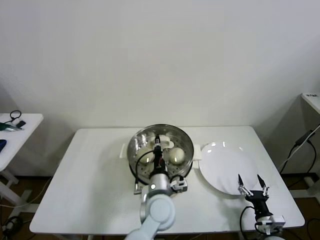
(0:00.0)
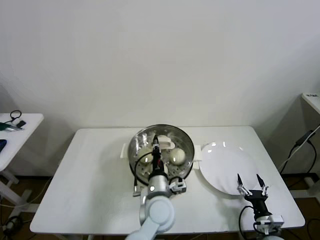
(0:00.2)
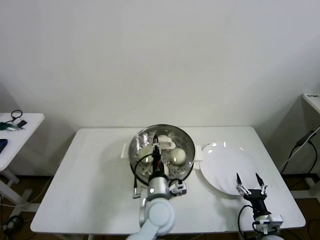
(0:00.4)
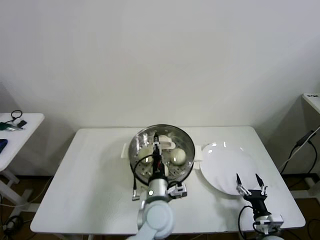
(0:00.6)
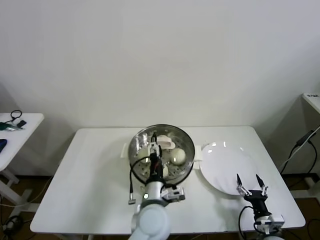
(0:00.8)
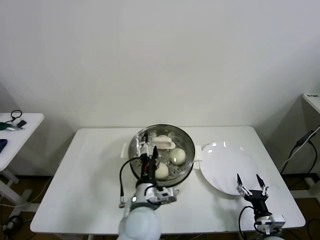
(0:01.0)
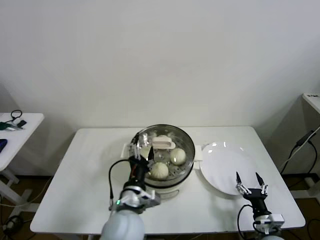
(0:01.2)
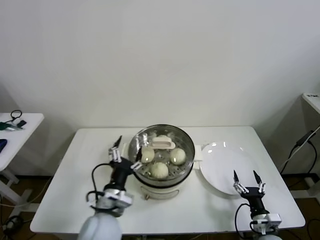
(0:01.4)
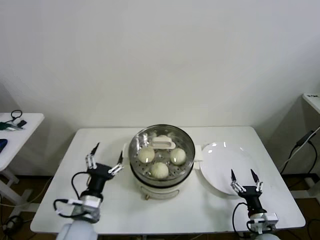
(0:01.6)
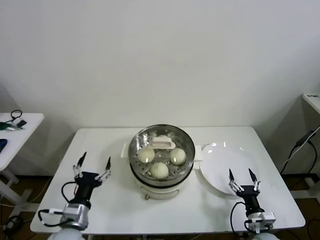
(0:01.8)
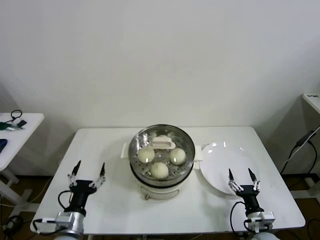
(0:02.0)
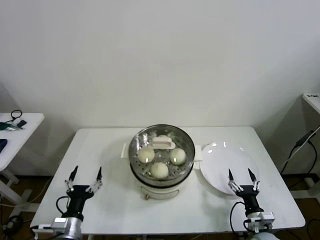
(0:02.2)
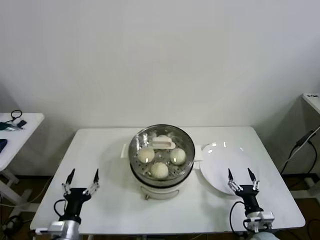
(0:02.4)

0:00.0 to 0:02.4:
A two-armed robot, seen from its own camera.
Task of the whole recording: take steamed baozi put them in steamer then cover it.
0:00.0 to 0:01.2: The left gripper is displaced to the left and backward by some 10 cm, and opens up.
0:01.2 to 0:02.4: The left gripper travels to the left and downward by some 25 cm.

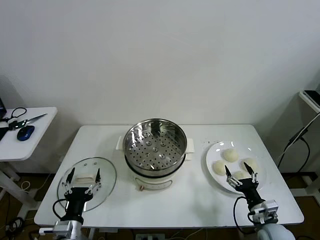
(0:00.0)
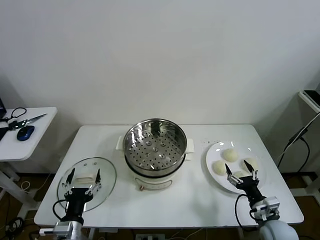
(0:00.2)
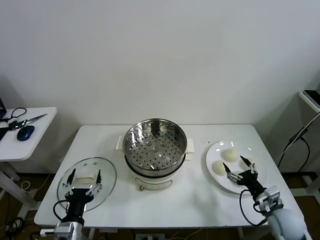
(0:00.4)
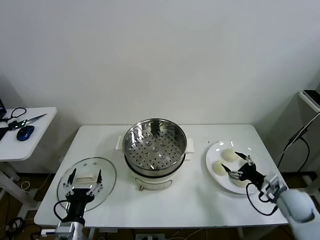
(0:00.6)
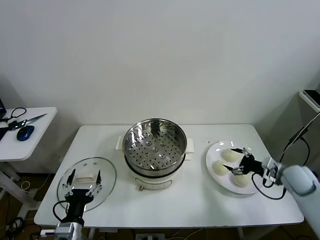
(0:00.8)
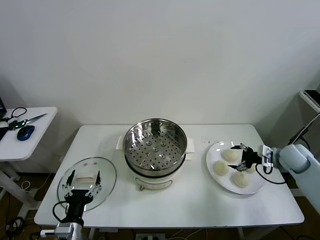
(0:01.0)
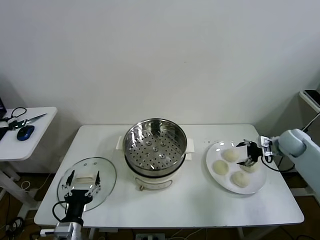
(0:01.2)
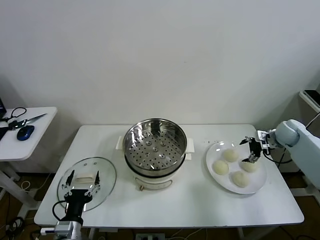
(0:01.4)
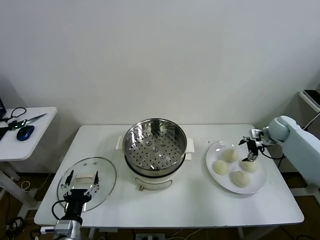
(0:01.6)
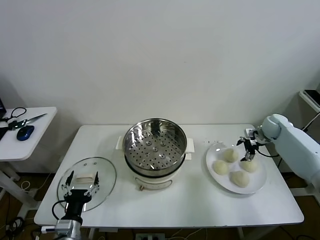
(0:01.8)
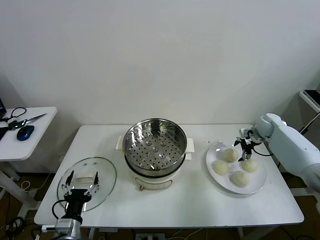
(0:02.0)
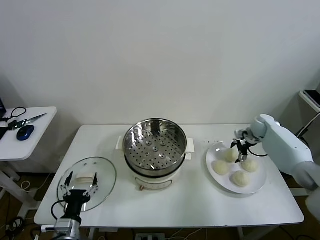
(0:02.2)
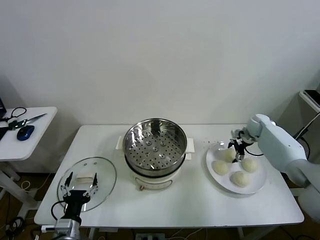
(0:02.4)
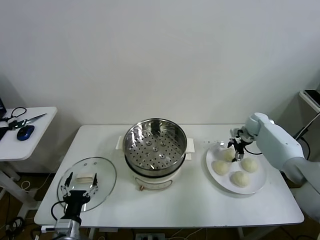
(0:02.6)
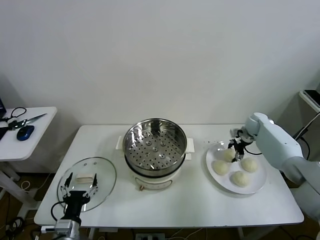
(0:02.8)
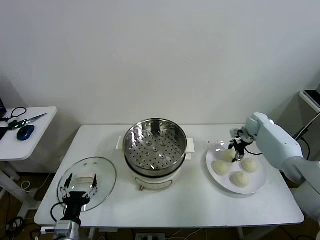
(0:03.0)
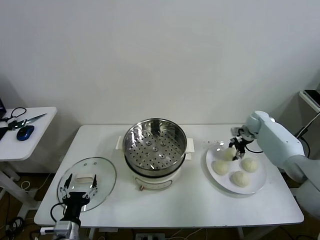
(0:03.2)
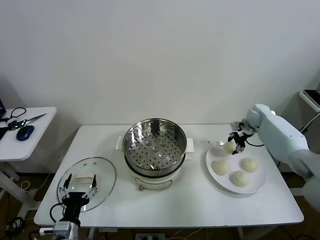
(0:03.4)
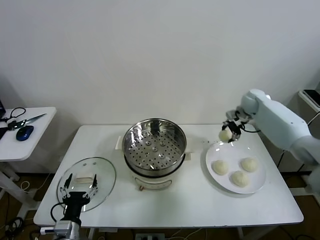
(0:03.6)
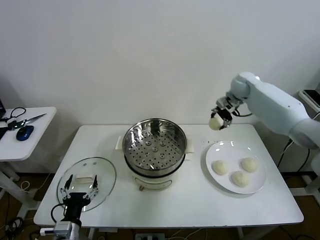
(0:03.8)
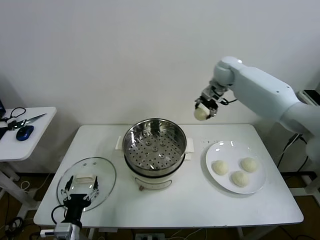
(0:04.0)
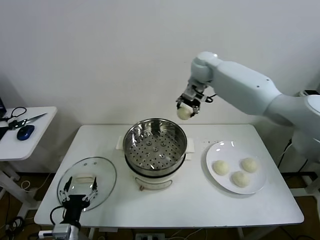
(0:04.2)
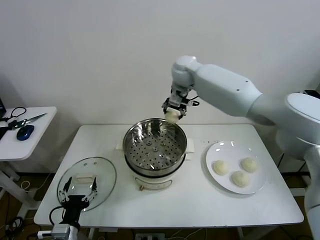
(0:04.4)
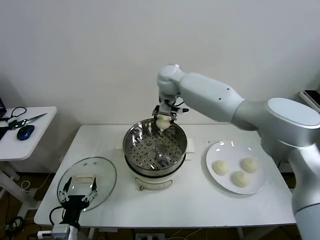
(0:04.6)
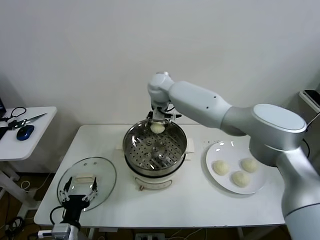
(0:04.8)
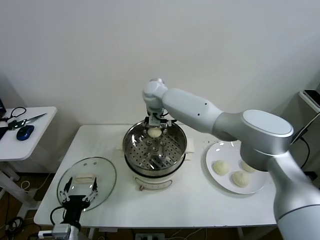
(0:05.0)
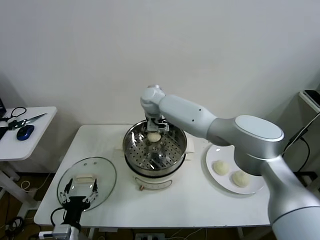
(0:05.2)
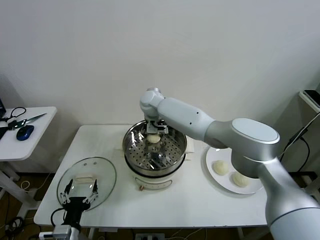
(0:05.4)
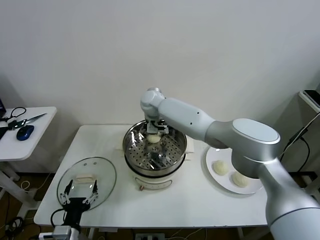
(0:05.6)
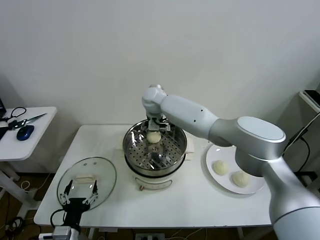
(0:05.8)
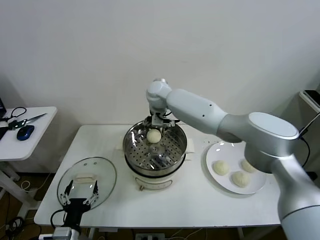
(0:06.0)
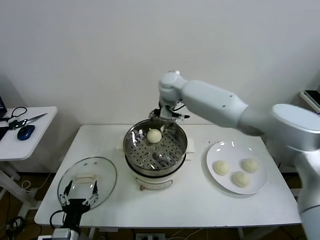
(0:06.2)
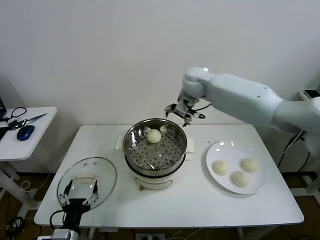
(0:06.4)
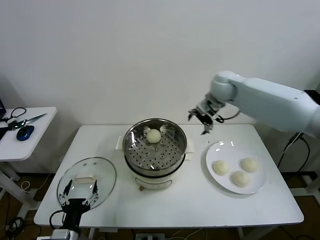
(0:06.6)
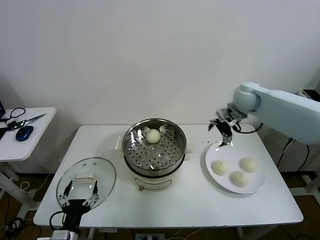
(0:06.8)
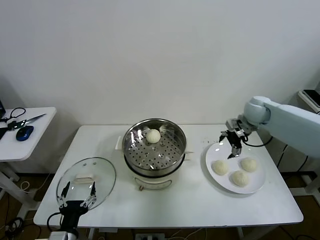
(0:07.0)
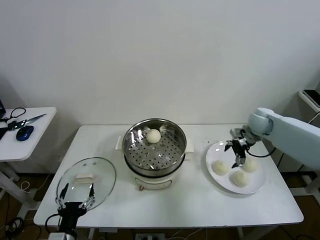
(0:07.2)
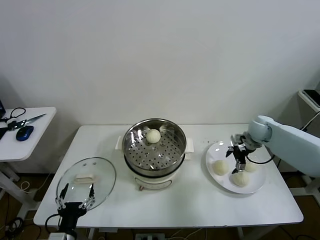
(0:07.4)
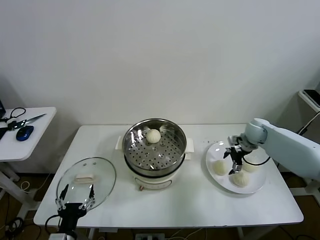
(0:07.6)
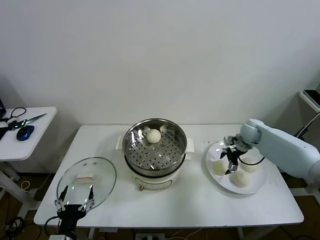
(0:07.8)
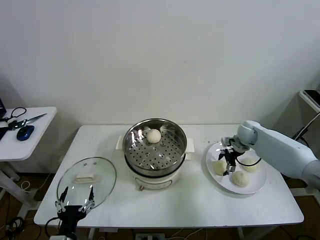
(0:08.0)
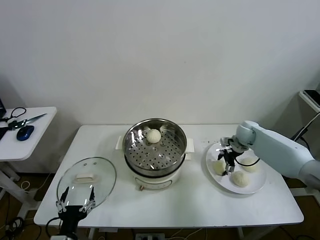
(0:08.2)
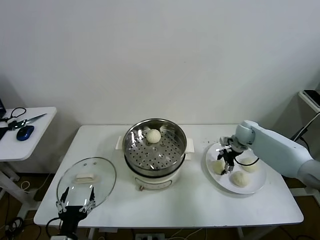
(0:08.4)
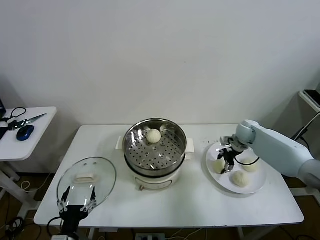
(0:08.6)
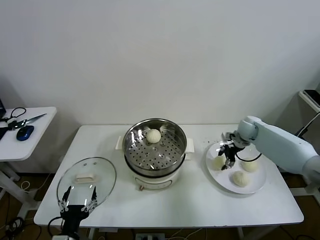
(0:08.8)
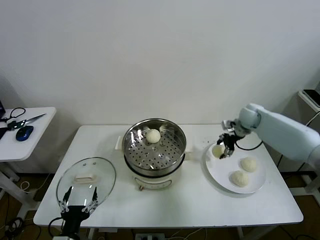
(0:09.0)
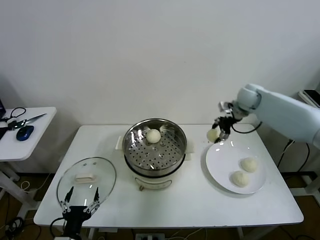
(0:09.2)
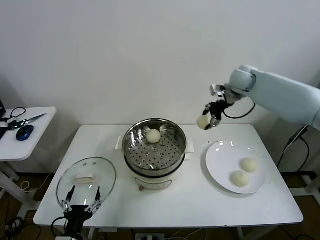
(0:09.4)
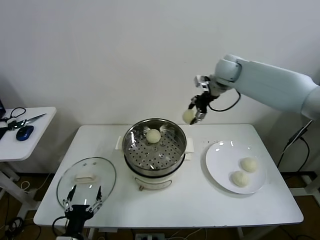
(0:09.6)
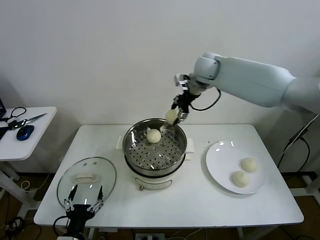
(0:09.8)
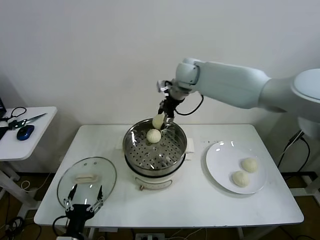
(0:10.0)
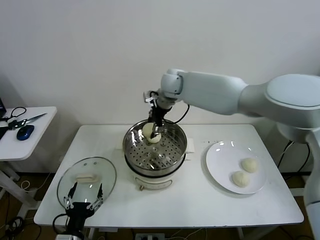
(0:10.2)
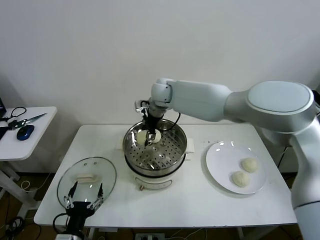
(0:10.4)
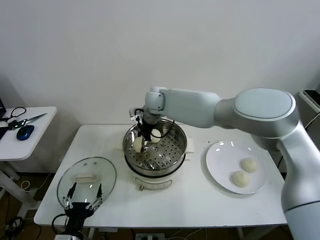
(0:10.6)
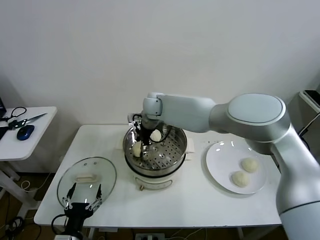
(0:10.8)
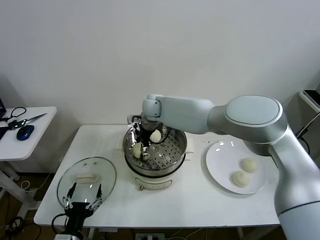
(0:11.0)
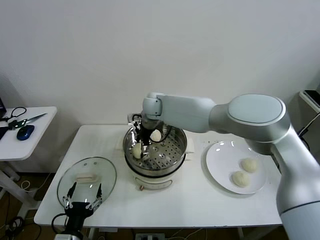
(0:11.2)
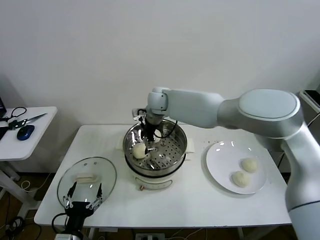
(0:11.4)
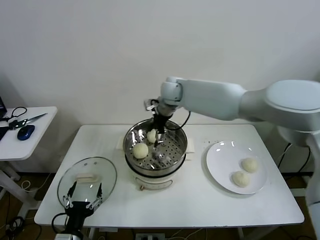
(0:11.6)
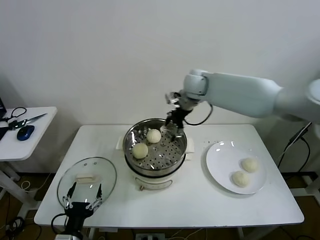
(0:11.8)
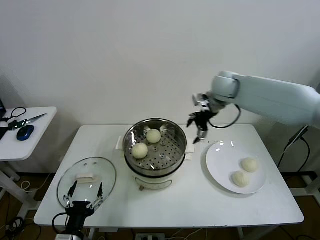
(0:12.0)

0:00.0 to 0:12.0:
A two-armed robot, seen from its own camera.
Task of the whole recording: take steamed baozi put them in steamer then cover it.
Step, 0:00.0 to 0:02.8: Grasp the baozi in the plate with right gripper.
Step, 0:03.0 to 0:05.8: Place the baozi on the steamer with right gripper.
Step, 0:06.0 to 0:08.4: Grasp the baozi in the plate with right gripper.
Step, 0:08.8 to 0:11.2: Place the baozi on the steamer with right gripper.
0:01.6 to 0:03.0: The right gripper changes place by approximately 10 cm, and closes up.
0:03.0 to 0:04.4: The right gripper moves to the left and upward, approximately 40 cm.
0:04.4 to 0:06.0: The right gripper opens.
0:06.0 to 0:07.6: The right gripper travels to the right and downward by some 40 cm.
0:07.6 to 0:09.0: The right gripper shifts about 10 cm upward, and closes.
0:09.0 to 0:10.4: The right gripper heads to the left, covering some 35 cm.
0:10.4 to 0:12.0: The right gripper goes some 25 cm to the right, and opens up.

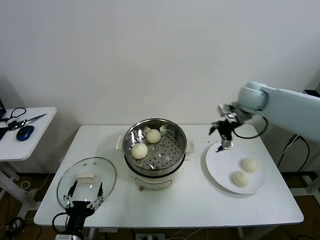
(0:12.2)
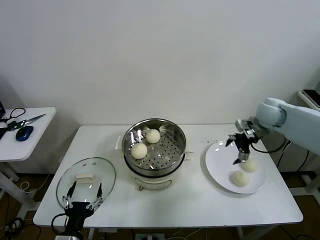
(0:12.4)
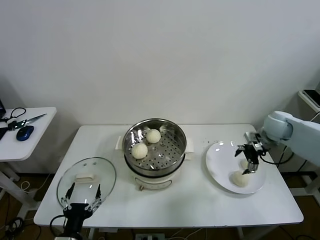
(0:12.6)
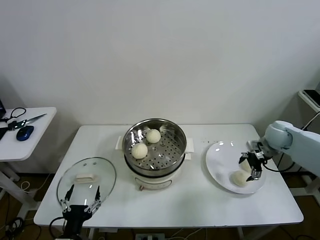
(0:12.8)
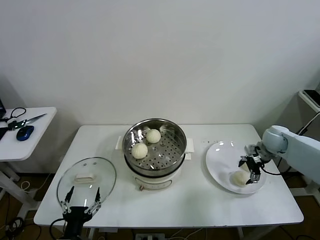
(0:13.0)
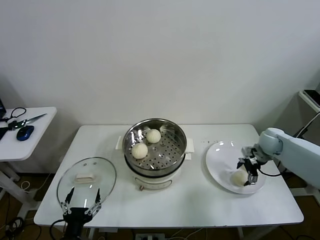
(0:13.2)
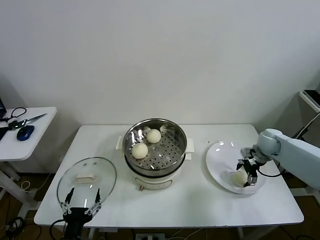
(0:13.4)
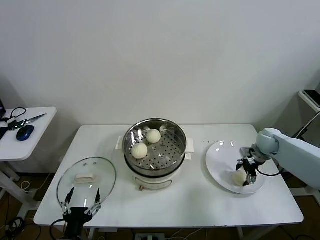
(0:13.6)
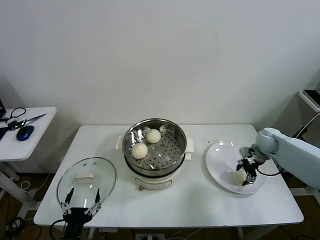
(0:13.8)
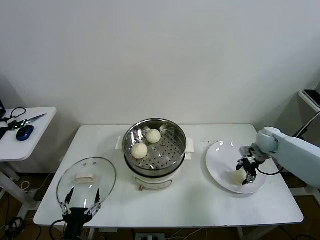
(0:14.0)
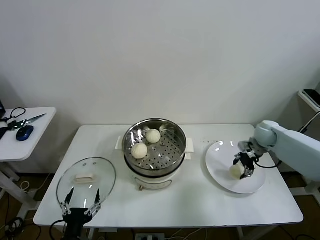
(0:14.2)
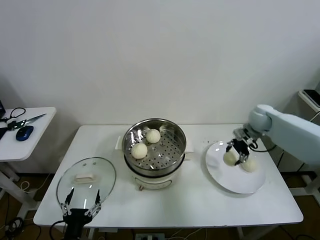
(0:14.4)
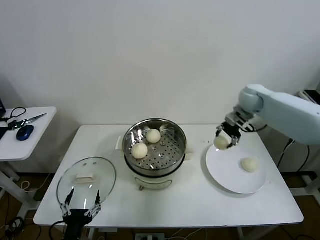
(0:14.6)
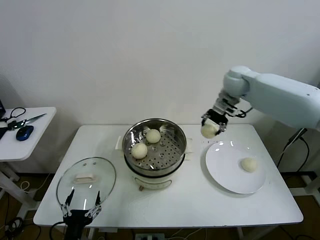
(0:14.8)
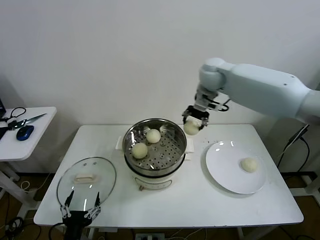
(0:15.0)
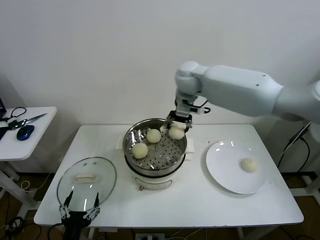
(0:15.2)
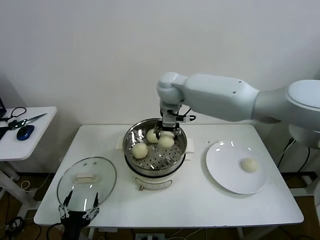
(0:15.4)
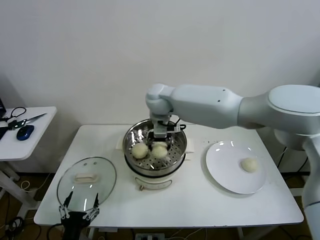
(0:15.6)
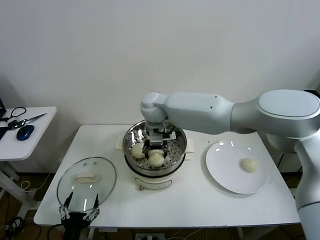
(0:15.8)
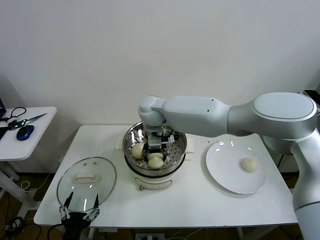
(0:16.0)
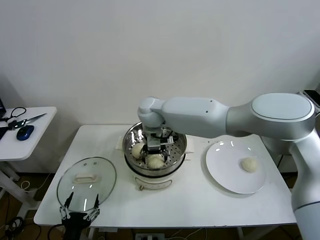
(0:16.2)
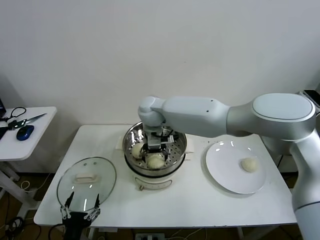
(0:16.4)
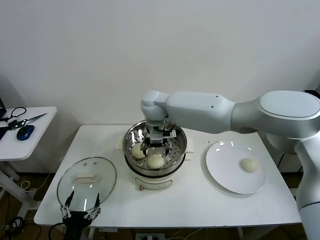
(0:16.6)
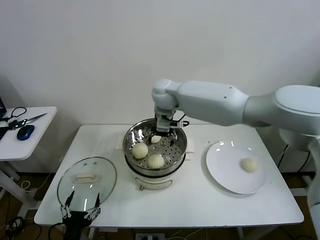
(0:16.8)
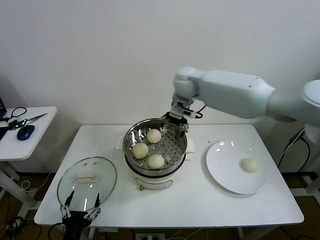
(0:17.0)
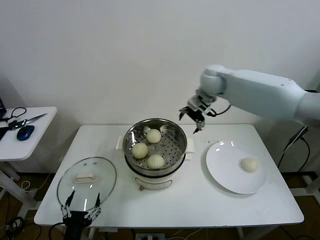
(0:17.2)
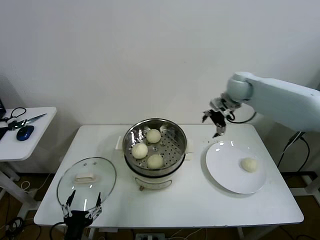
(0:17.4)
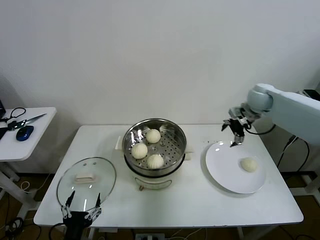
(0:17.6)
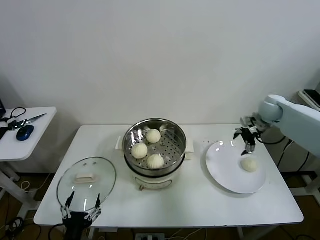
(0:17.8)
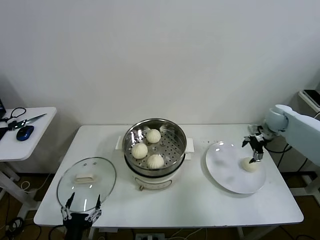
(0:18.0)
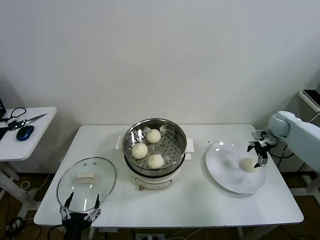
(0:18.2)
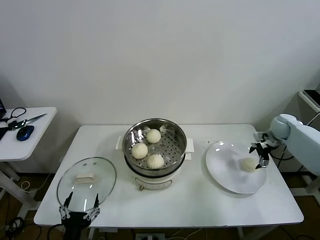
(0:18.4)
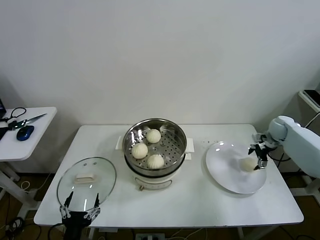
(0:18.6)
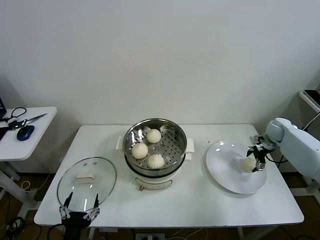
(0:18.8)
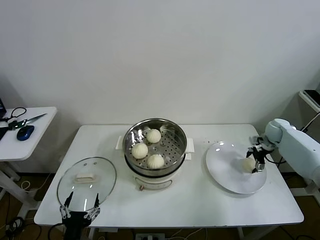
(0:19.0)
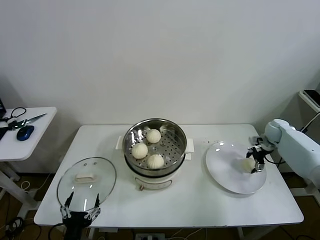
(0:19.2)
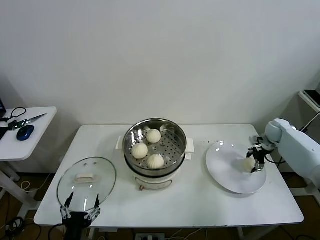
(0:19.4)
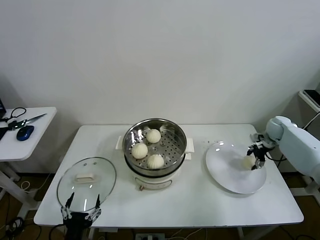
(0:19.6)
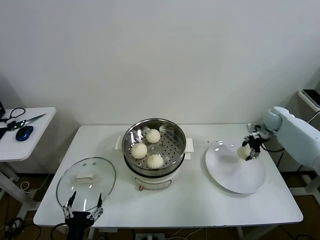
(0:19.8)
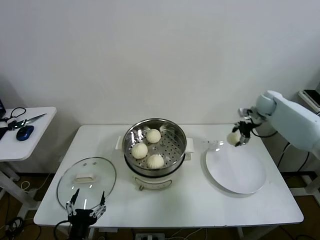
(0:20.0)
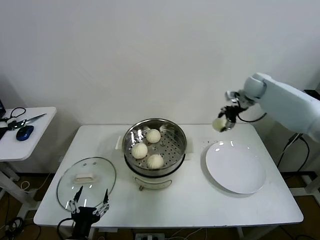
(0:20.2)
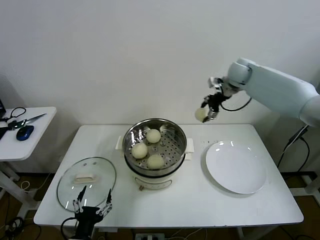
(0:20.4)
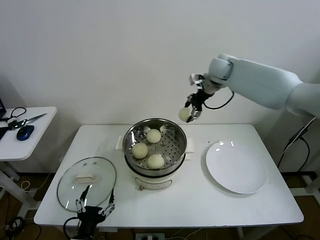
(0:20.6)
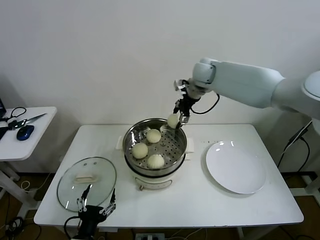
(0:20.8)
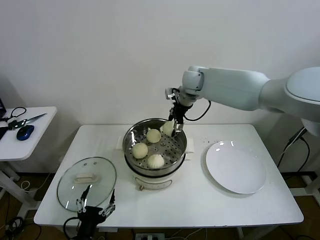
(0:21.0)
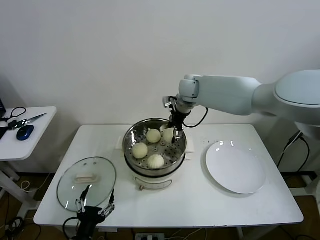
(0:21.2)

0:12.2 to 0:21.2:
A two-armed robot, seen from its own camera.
Task of the whole recording: take steamed baozi put them in steamer then cover it.
Step, 0:12.2 to 0:13.8: Grasp the baozi in the plate with right gripper.
Step, 0:14.2 to 0:16.4: Place the baozi on the steamer with right gripper.
Step, 0:16.6 to 0:19.4: Grasp the baozi in the plate with right gripper.
0:12.2 to 0:13.8: The right gripper goes some 20 cm downward and to the right, and closes its fingers.
0:13.8 to 0:15.2: The right gripper moves to the left and upward, approximately 40 cm.
0:15.2 to 0:16.6: The right gripper shifts about 10 cm to the left and downward, and opens its fingers.
0:16.6 to 0:18.2: The right gripper shifts roughly 50 cm to the right.
0:18.2 to 0:19.8: The right gripper closes its fingers.
0:19.8 to 0:21.2: The right gripper travels to the left by some 35 cm.
